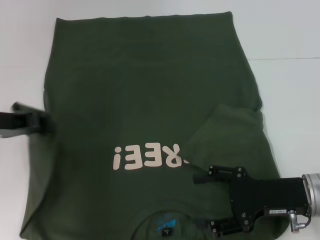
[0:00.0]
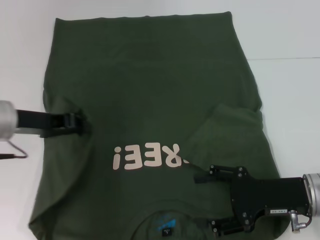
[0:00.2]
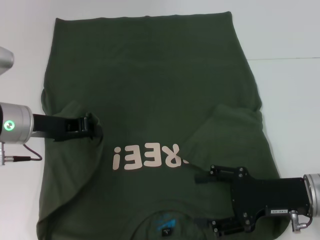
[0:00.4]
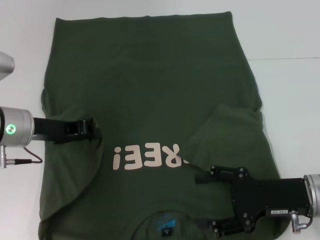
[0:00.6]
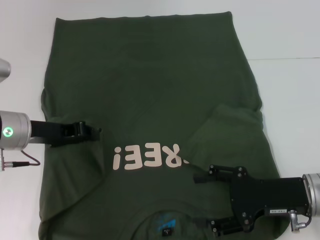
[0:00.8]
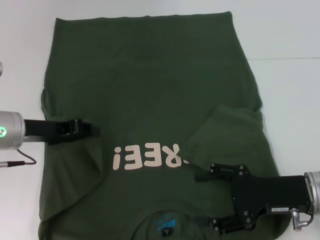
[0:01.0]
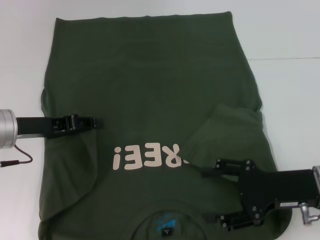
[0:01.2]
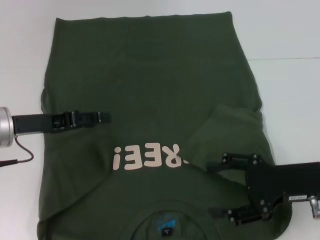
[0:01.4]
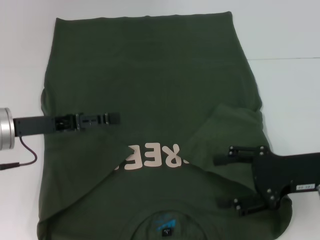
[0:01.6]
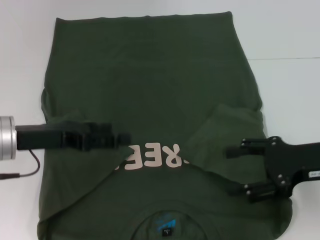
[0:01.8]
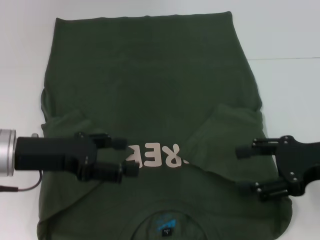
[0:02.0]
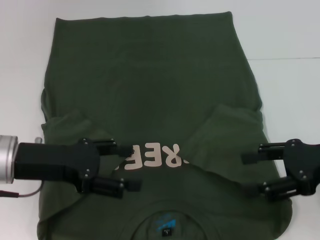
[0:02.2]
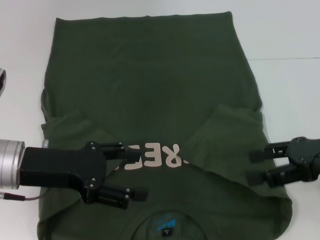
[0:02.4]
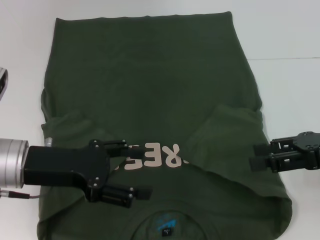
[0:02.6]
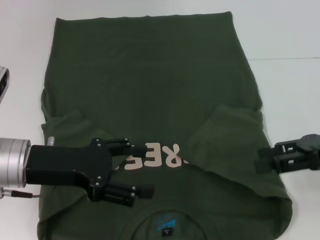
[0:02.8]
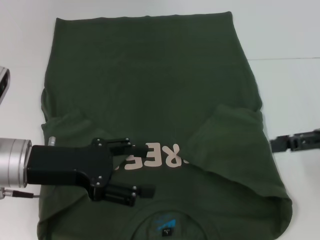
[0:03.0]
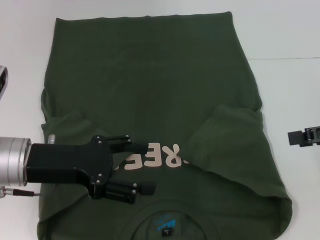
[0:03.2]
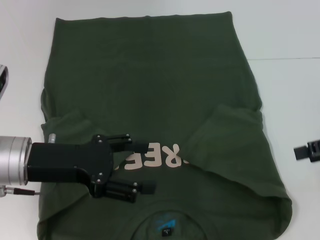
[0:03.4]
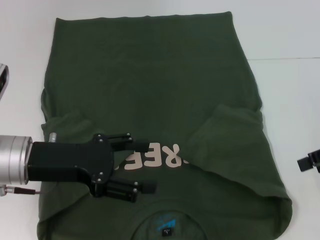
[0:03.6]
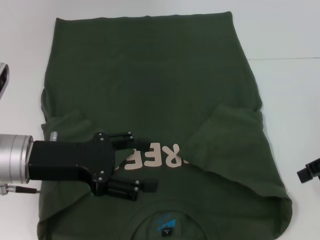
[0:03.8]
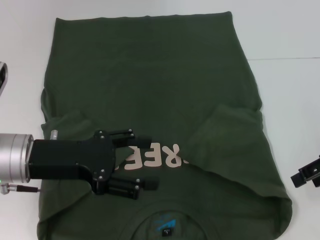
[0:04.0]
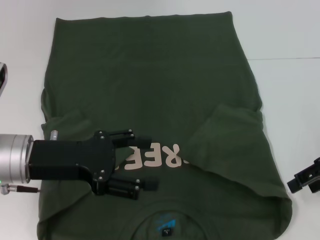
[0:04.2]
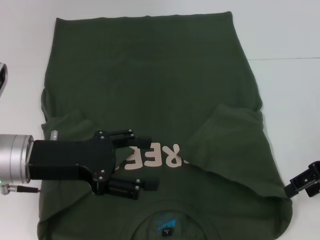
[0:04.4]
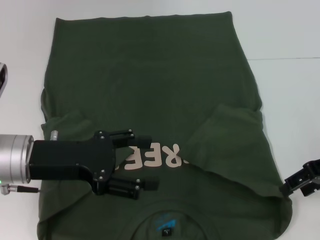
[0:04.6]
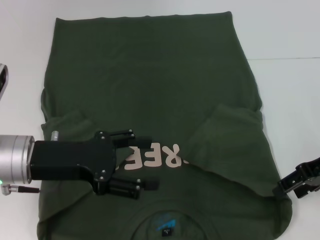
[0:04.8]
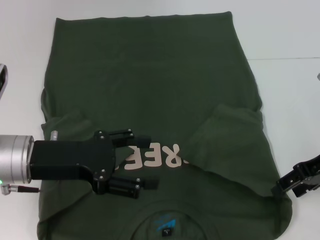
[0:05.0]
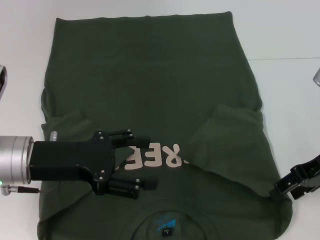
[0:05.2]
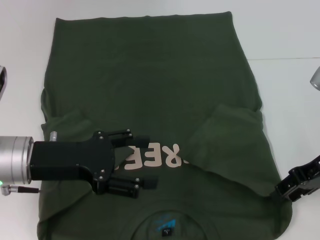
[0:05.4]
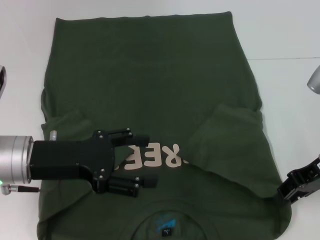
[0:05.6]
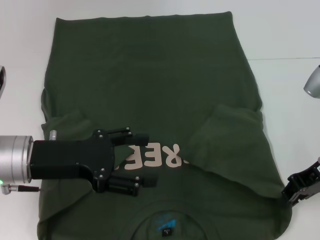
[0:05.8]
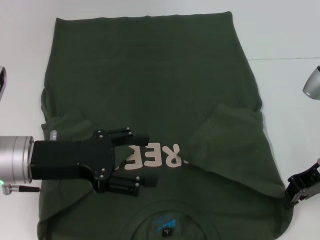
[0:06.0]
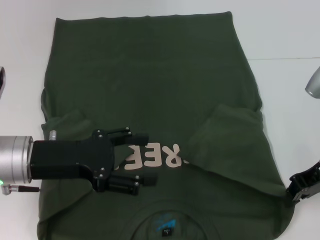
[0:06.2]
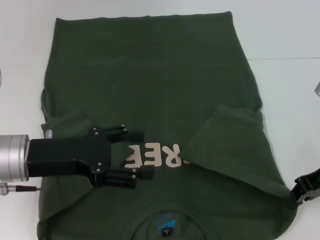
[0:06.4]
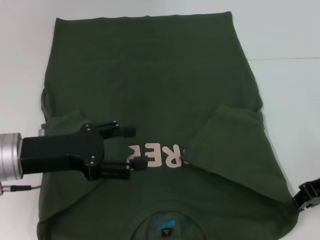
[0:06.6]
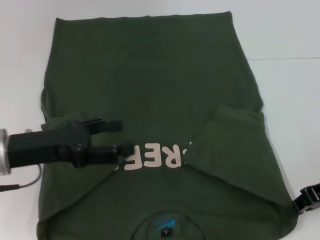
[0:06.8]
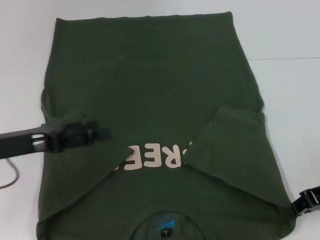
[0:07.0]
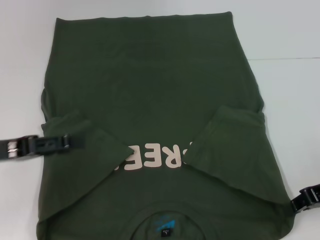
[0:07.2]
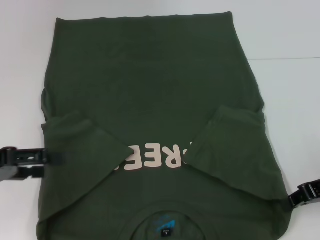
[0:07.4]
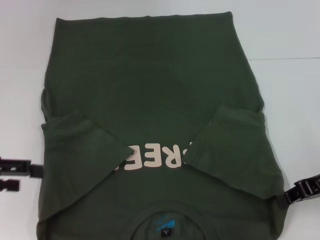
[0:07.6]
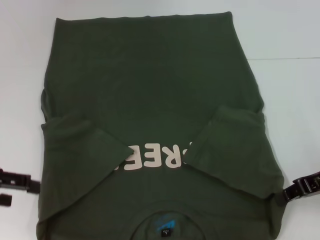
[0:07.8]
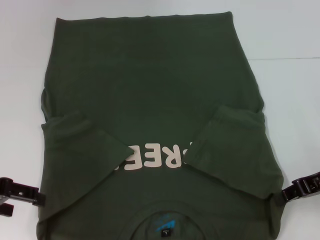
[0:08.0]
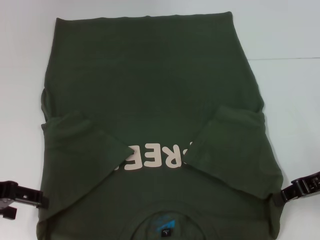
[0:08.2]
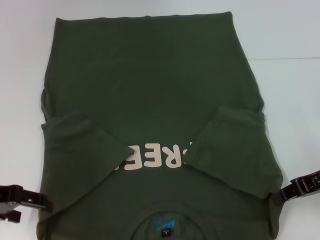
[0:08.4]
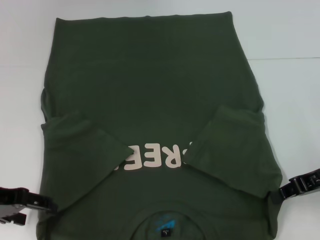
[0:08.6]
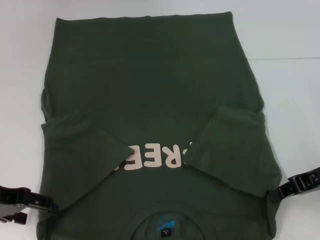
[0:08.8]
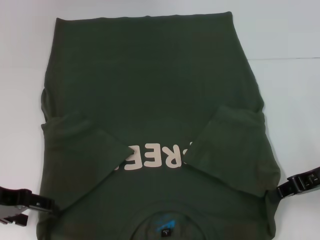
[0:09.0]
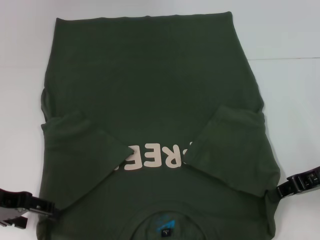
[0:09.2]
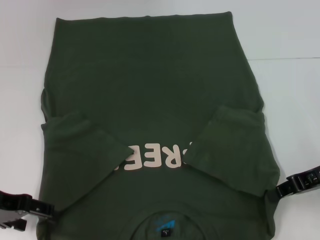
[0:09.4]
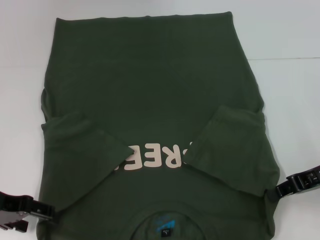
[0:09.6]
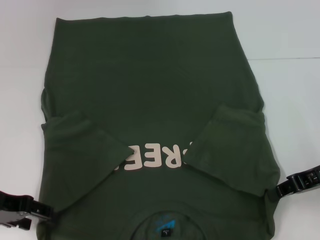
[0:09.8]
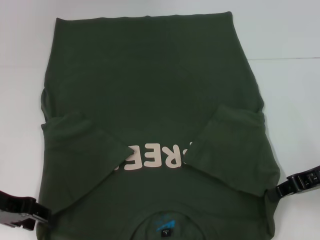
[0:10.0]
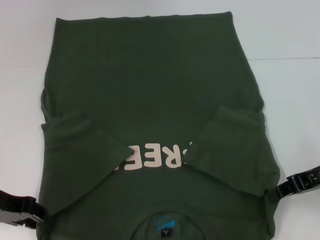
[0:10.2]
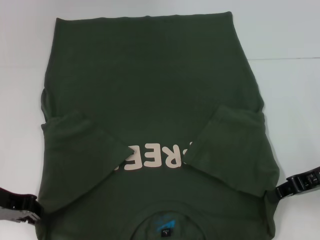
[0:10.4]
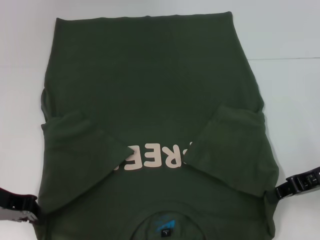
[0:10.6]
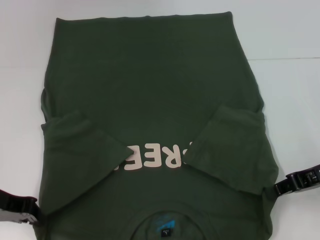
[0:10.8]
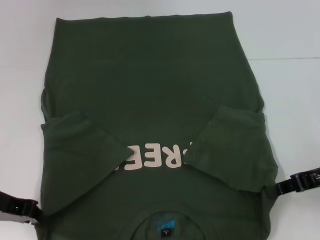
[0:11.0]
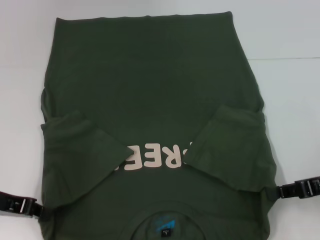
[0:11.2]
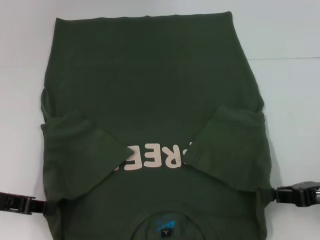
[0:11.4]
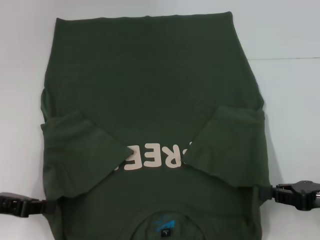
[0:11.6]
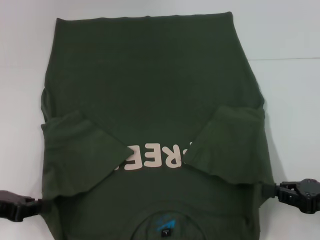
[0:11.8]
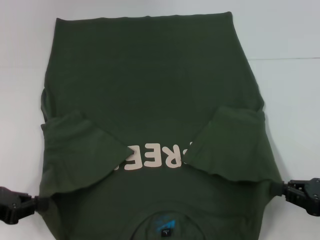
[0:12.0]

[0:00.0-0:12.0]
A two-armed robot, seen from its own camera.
Step, 0.0 to 2.0 s: Fold the bottom left sleeve with your left hand.
Step, 2.2 to 6.8 s: Grab the bottom right corner with your right hand.
Step, 7.0 to 11.2 s: Grab the bottom left corner with your left hand.
0.0 to 1.6 s: The left gripper opens up. The right gripper moves roughly 5 cm.
1.6 to 3.0 s: The left gripper changes place by approximately 5 cm. Meanwhile the right gripper shifts approximately 10 cm upward and to the right.
3.0 to 4.4 s: The right gripper ends up roughly 5 cm from where it was.
4.4 to 6.0 s: The right gripper closes.
6.0 to 7.6 s: The left gripper heads to the left, covering some 10 cm.
7.6 to 9.0 s: The left gripper moves about 5 cm.
9.0 to 10.4 s: The left gripper closes its fingers.
10.4 to 12.0 s: The left gripper moves approximately 5 cm, while the right gripper shifts approximately 10 cm backward and downward.

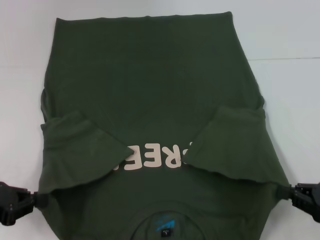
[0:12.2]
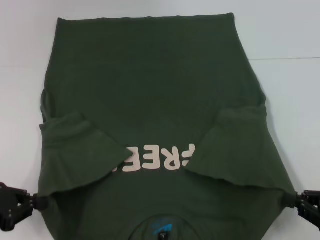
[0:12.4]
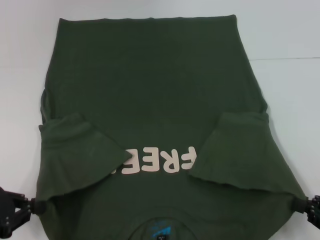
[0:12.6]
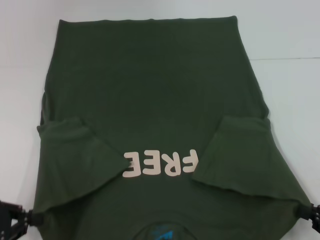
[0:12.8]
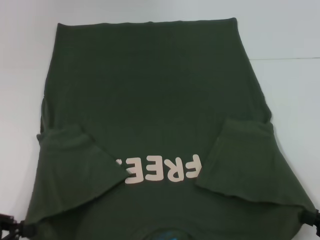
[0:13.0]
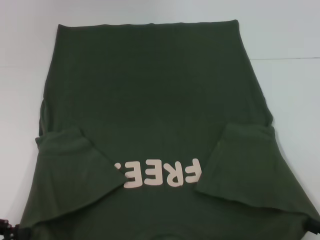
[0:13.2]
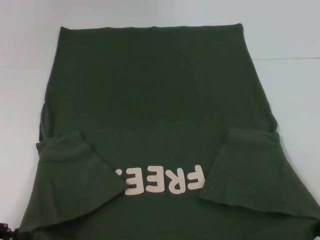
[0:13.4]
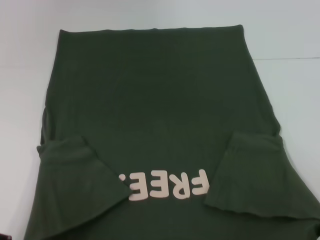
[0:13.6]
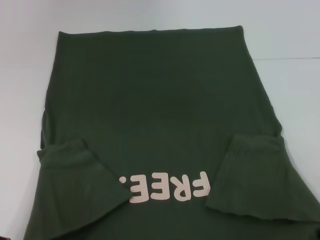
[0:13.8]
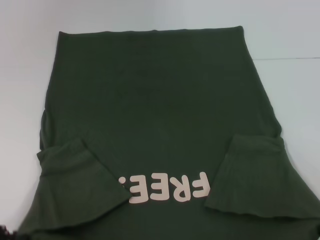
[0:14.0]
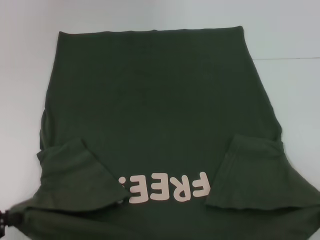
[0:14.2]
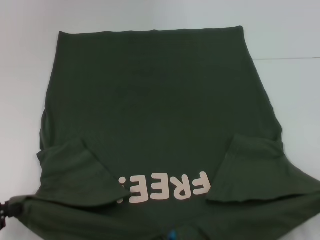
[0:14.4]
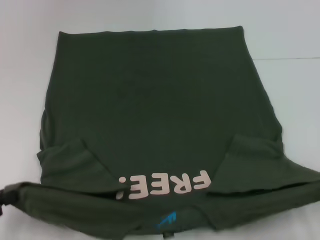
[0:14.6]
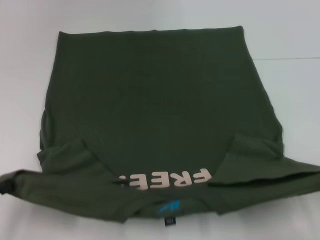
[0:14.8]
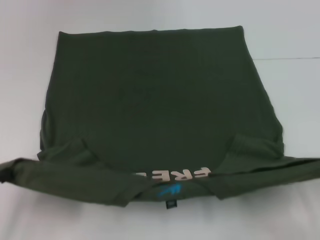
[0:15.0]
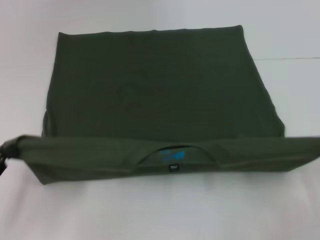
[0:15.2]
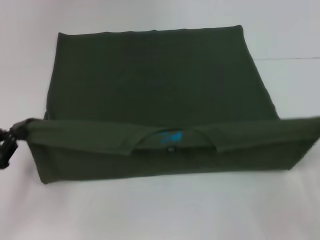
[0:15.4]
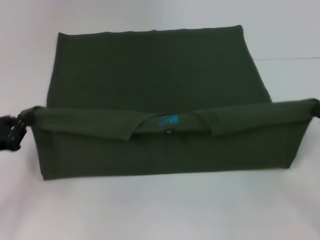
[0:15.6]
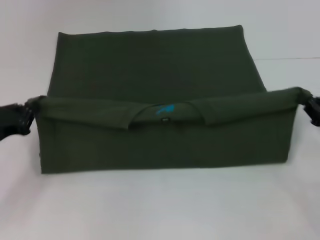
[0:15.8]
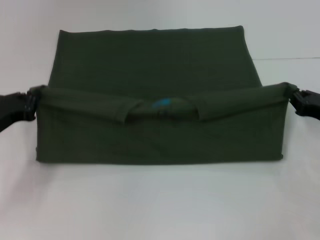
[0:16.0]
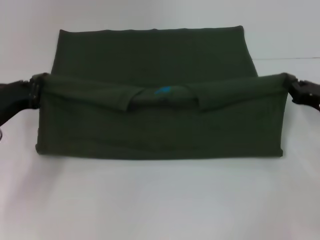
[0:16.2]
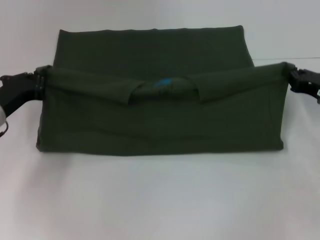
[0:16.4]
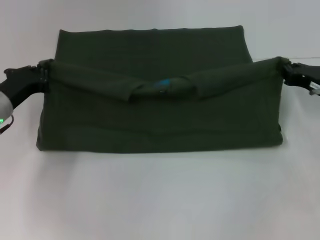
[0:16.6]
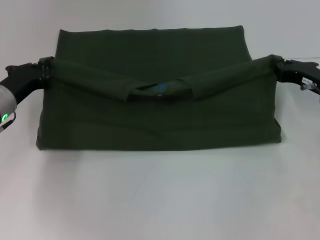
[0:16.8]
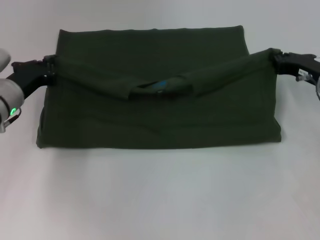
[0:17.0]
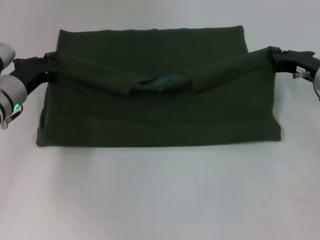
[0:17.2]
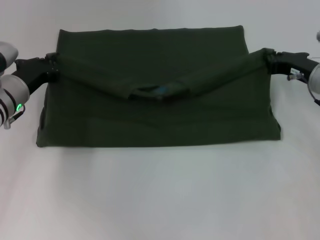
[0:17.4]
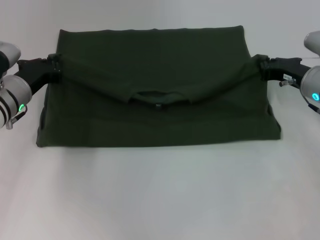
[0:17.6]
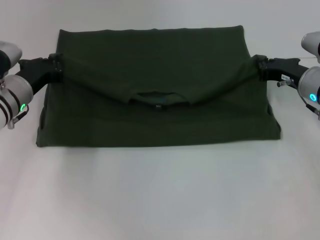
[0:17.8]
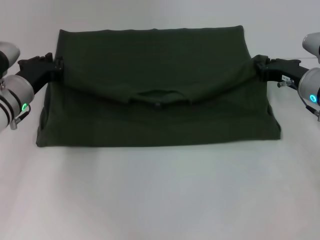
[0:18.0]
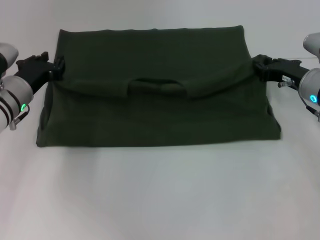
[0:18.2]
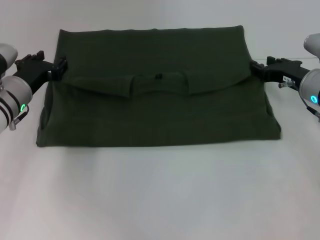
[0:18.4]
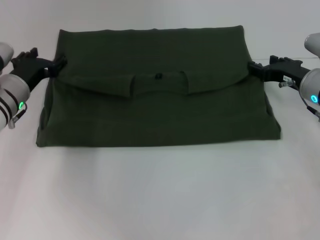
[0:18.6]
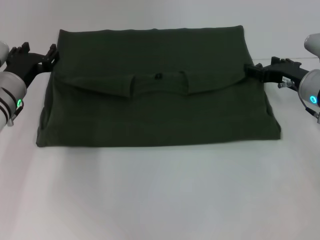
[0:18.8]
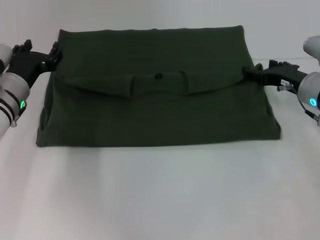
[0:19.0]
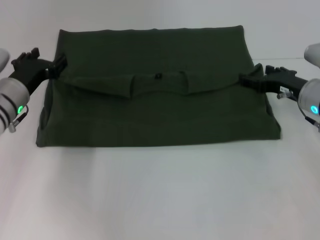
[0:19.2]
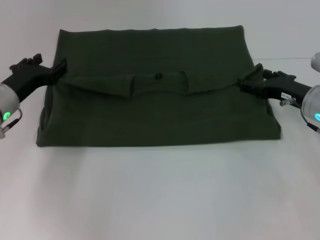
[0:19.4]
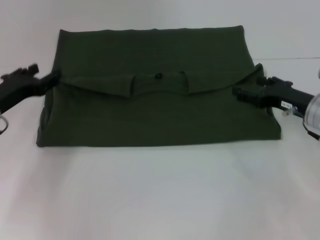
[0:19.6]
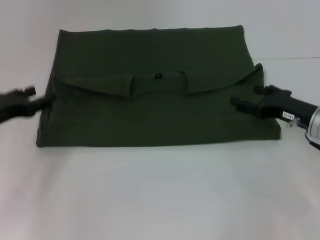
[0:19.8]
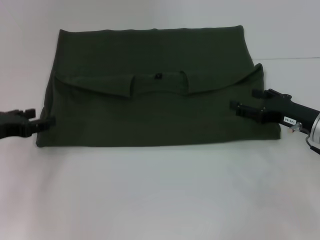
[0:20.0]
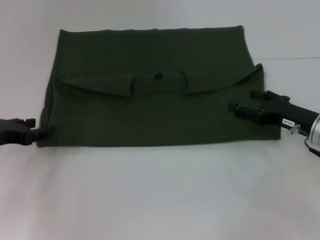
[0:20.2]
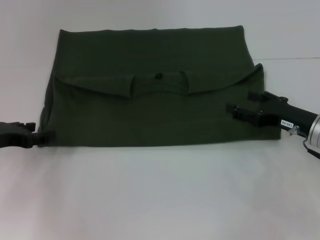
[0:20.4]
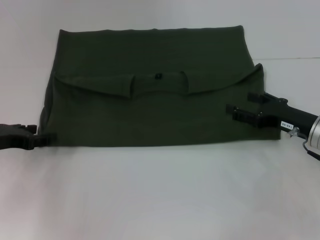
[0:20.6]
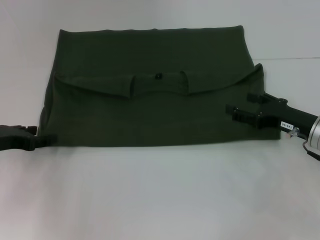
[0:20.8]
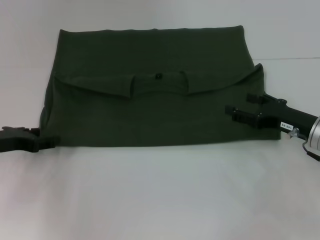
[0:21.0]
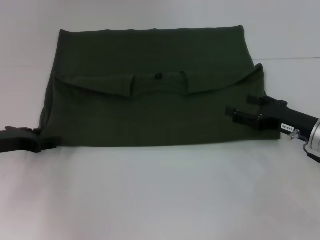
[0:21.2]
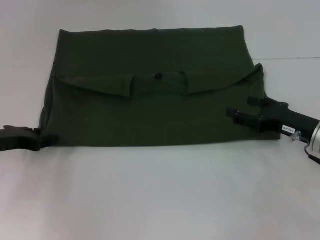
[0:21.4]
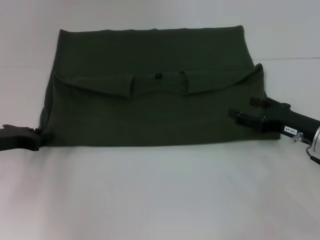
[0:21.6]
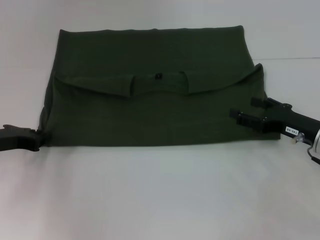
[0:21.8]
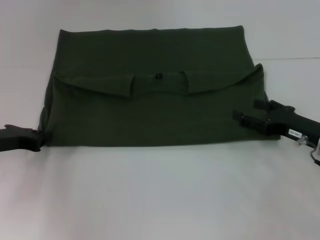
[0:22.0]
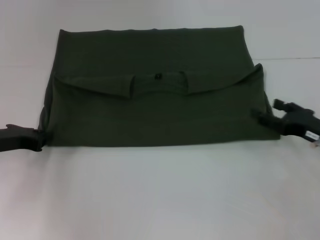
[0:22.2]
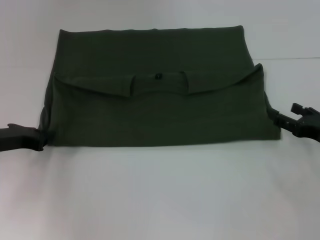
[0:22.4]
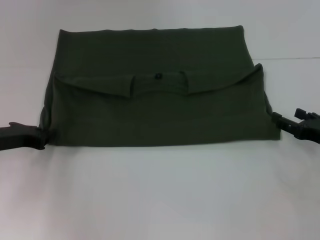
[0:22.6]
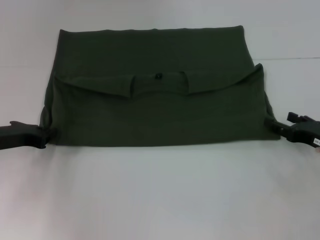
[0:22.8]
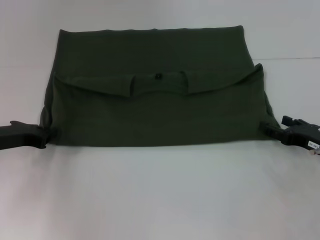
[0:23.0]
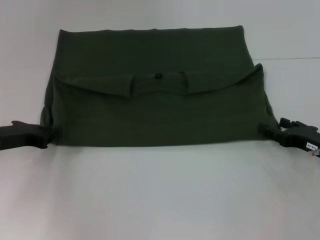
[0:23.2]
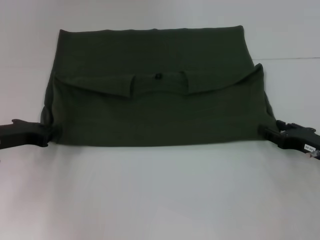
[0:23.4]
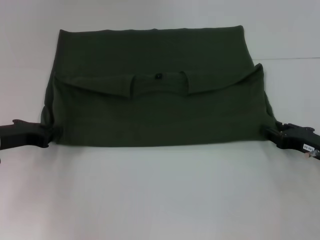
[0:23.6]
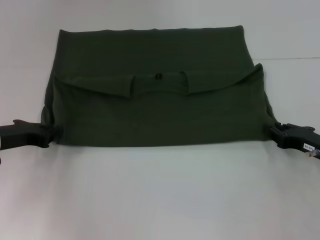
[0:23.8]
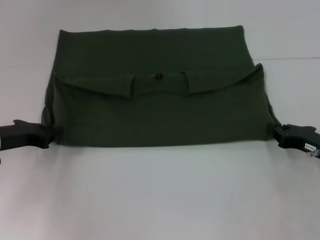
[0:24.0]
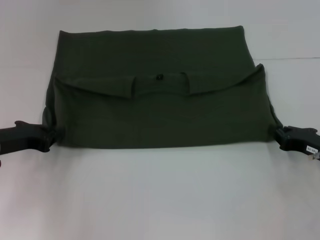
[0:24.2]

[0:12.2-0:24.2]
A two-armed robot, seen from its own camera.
Step, 12.2 to 19.2 s: Fold the clothes with your left hand.
Step, 12.2 to 19.2 s: Fold the clothes with your right hand.
12.2 to 13.8 s: The grippers both shift backward by approximately 10 cm.
13.8 to 15.2 s: The right gripper shifts approximately 5 cm forward.
15.2 to 16.6 s: The left gripper goes roughly 20 cm forward and to the right. Meanwhile the right gripper is displaced forward by about 20 cm.
16.6 to 18.2 s: The right gripper shifts by approximately 5 cm.
18.2 to 19.8 s: The left gripper heads to the left and backward, covering some 10 cm, and opens up. Meanwhile the right gripper travels backward by approximately 5 cm, and opens its fingers.
21.2 to 22.6 s: The right gripper travels to the right by approximately 5 cm; the left gripper closes.
22.6 to 24.2 s: The right gripper closes.
